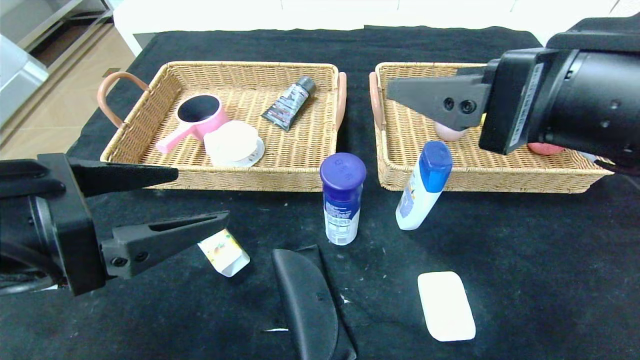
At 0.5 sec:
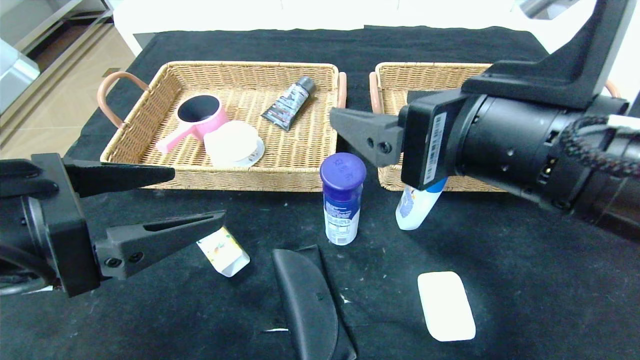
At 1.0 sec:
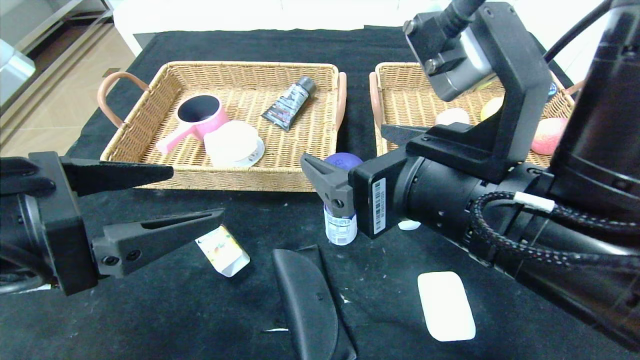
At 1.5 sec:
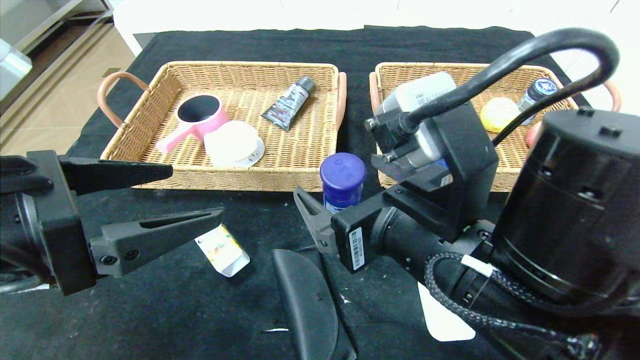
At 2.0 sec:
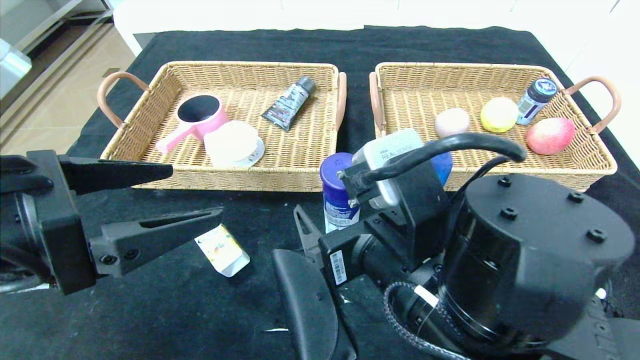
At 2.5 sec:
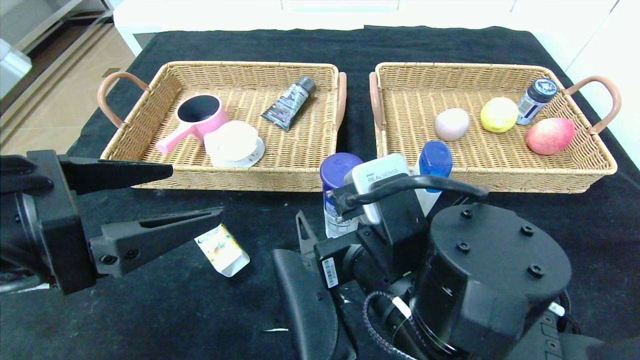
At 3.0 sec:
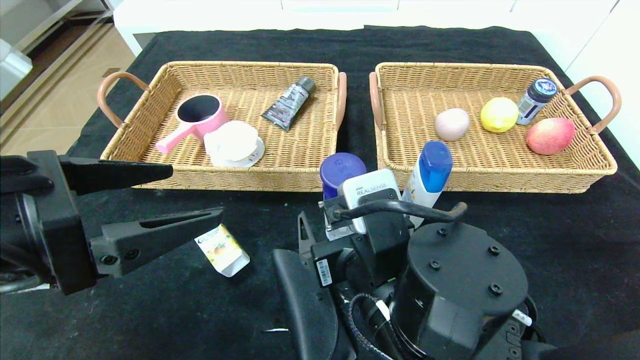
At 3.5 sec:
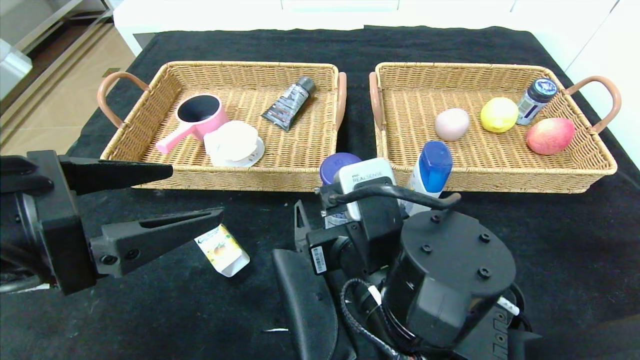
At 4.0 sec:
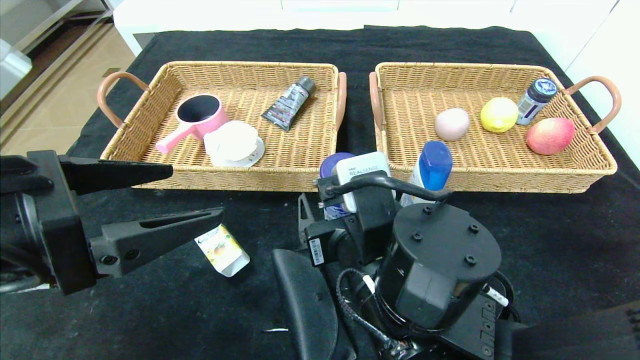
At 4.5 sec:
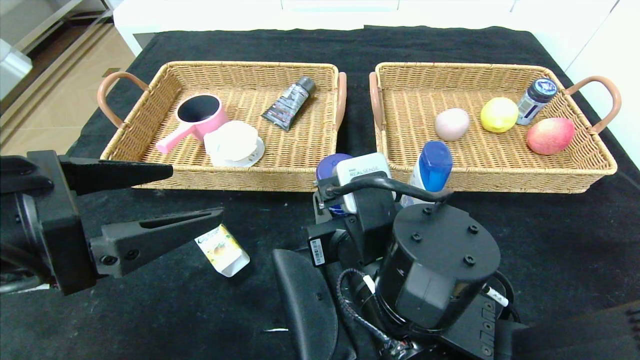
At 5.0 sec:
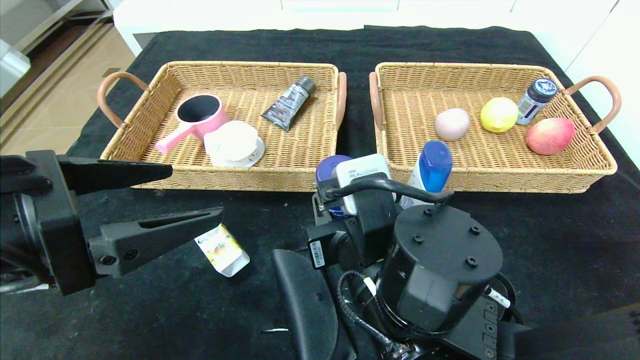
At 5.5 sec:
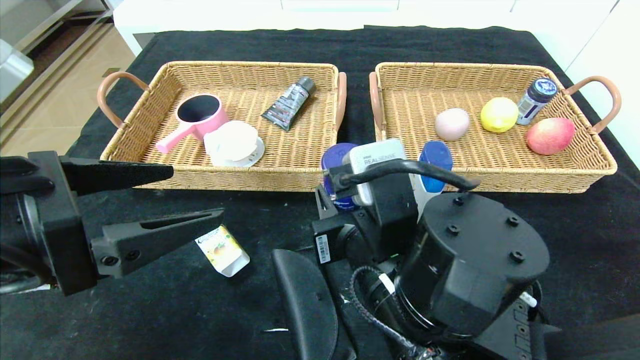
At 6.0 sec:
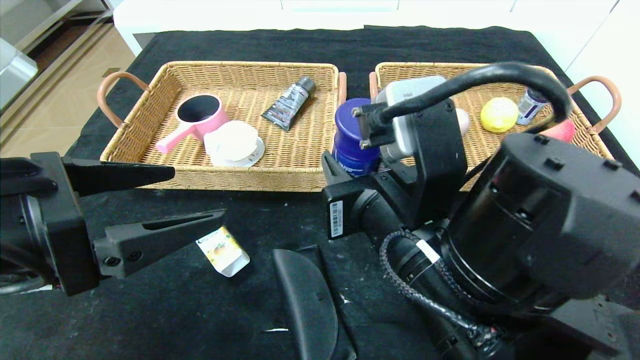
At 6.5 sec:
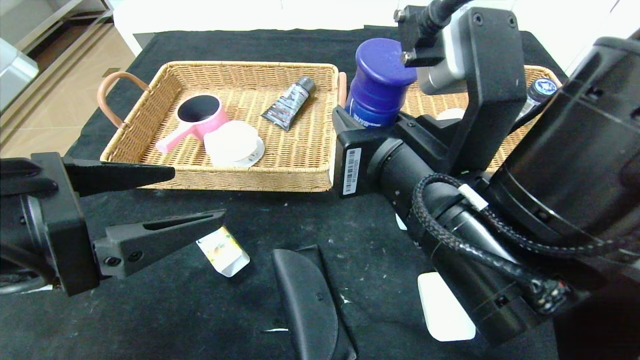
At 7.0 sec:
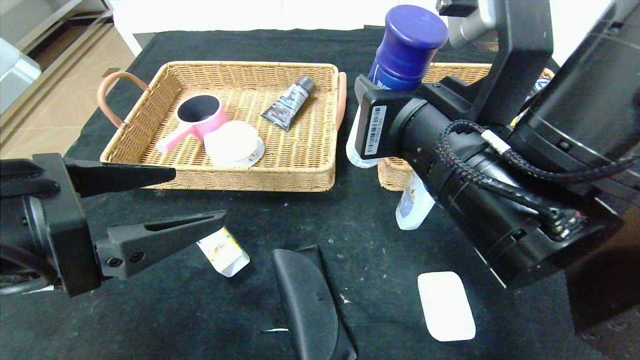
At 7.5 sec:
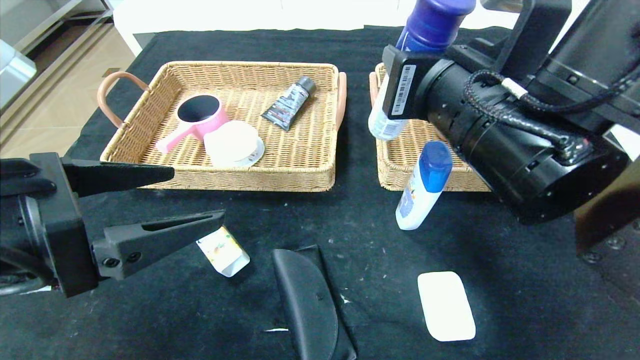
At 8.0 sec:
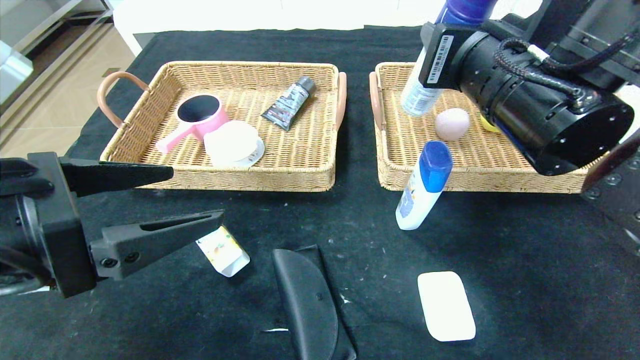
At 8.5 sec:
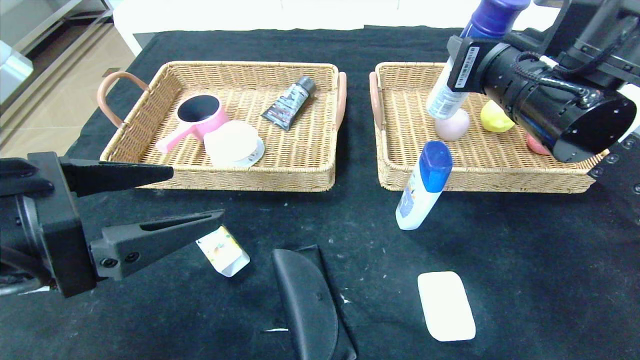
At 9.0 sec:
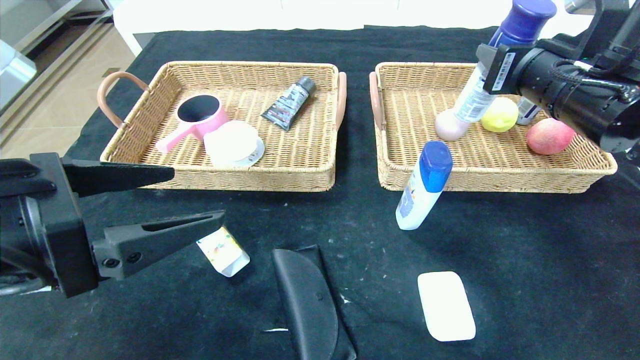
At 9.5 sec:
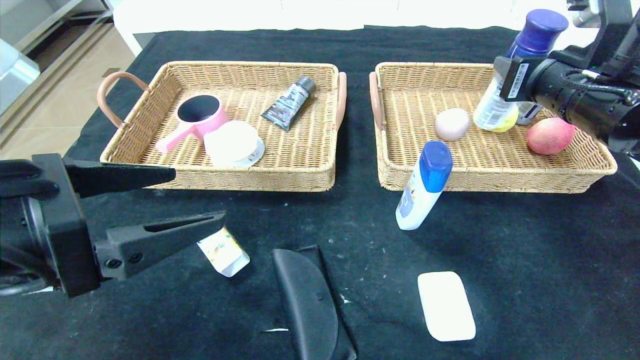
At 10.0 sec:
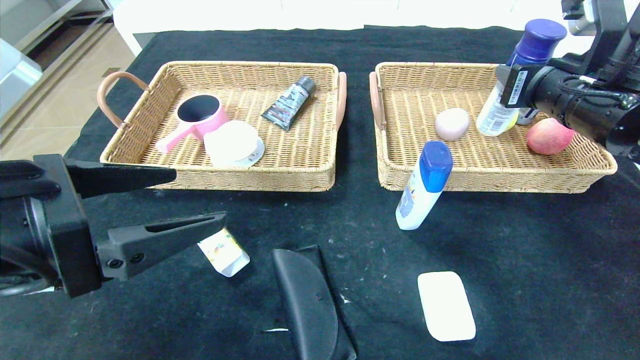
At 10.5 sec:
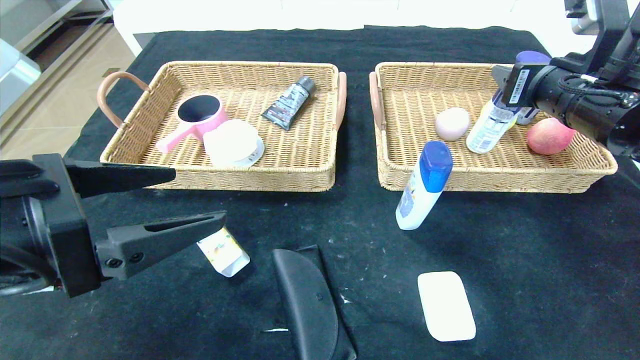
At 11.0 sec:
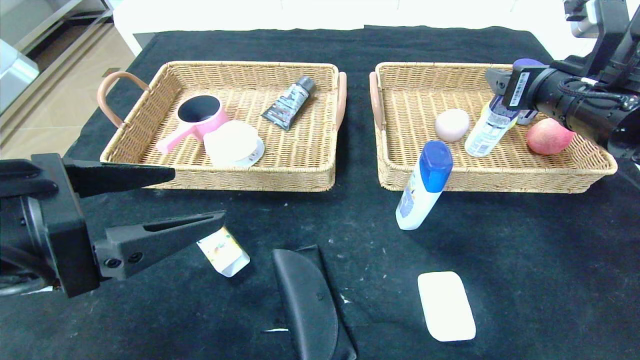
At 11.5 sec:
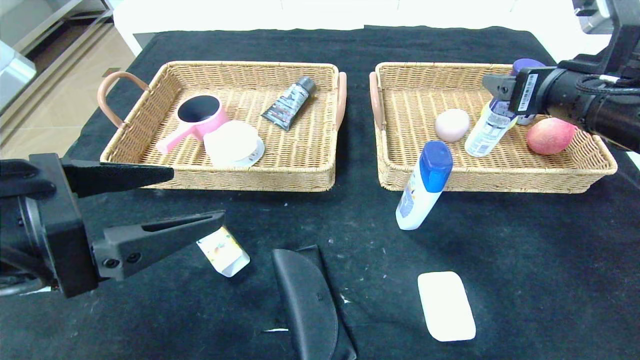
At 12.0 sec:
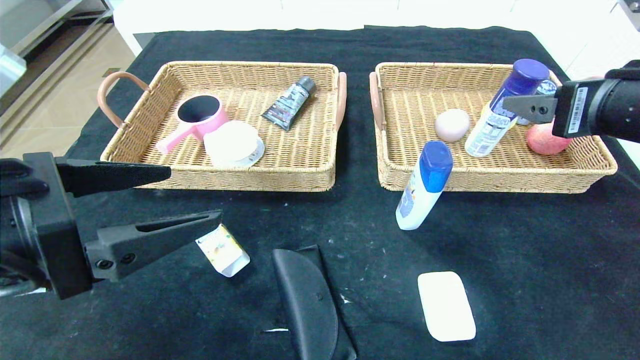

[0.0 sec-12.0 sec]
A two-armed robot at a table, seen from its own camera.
Step, 0.0 sec to 11.0 sec: Grasp the yogurt and put it in the right basket.
0.0 sec to 2.0 sec: The right gripper heads downward and to the left, covering about 15 cm.
2.0 sec to 4.0 sec: The right gripper moves roughly 5 cm.
4.0 sec to 6.0 sec: The right gripper heads upward, covering some 5 cm, and closes up.
6.0 sec to 8.0 sec: The right gripper heads upward, to the right and forward, covering some 15 cm.
8.0 sec to 10.0 sec: The right gripper shifts some 15 cm to the right and forward.
10.0 sec to 12.0 sec: The right gripper heads backward, covering some 10 cm, and opens.

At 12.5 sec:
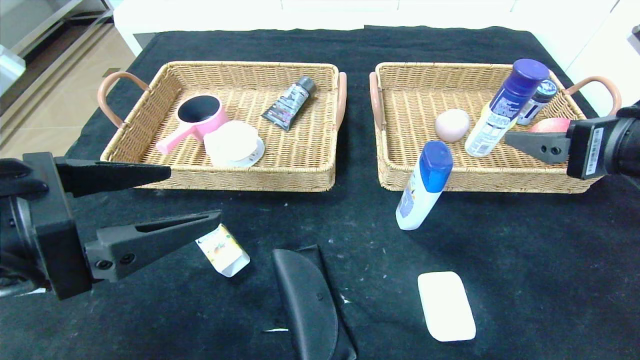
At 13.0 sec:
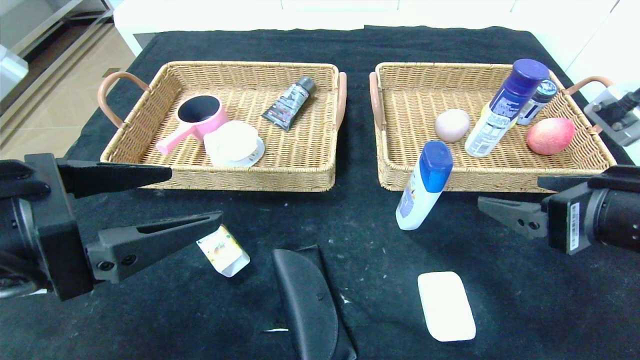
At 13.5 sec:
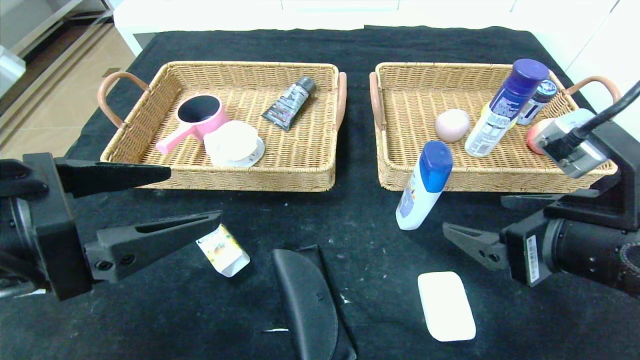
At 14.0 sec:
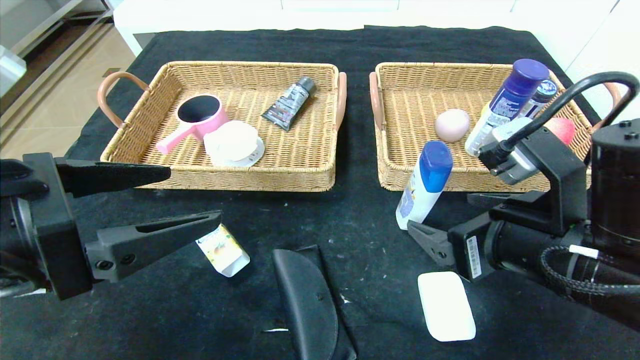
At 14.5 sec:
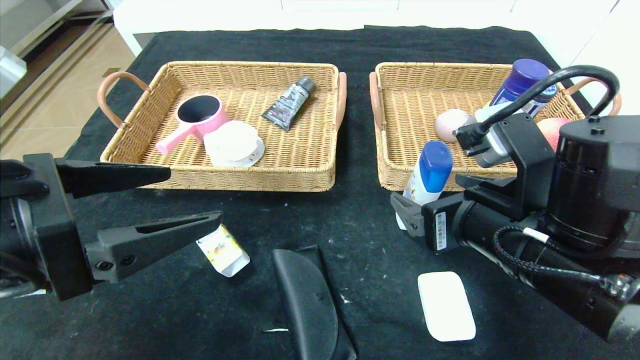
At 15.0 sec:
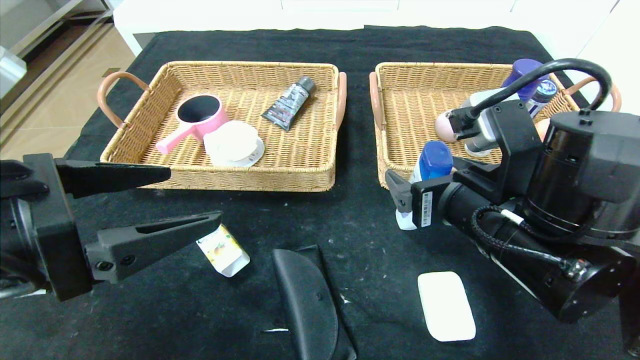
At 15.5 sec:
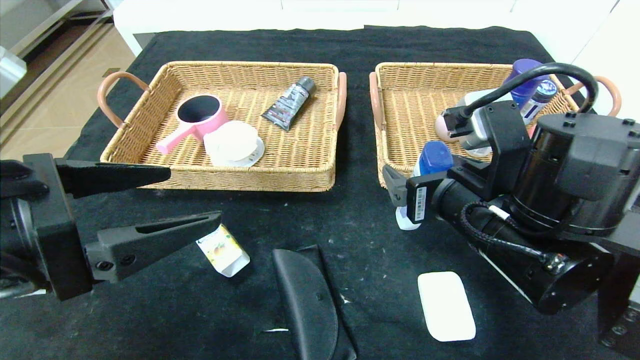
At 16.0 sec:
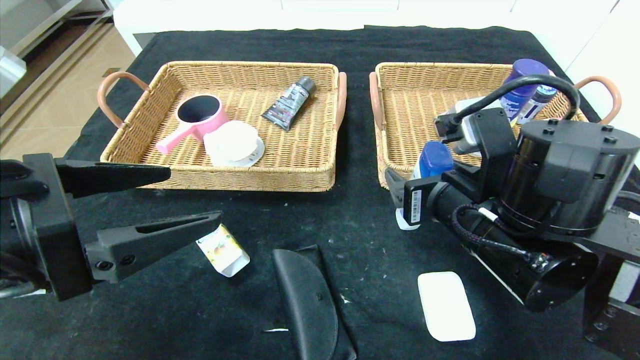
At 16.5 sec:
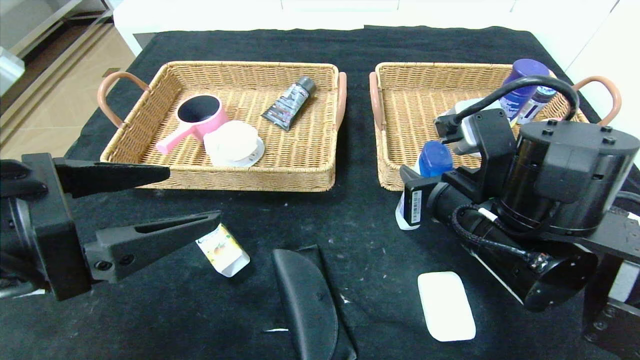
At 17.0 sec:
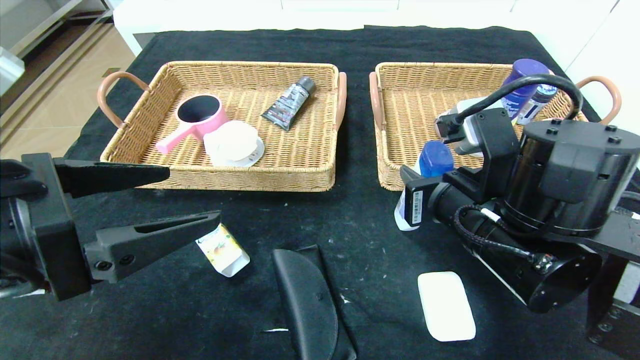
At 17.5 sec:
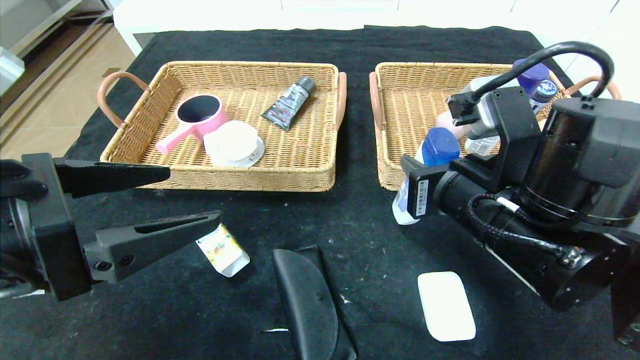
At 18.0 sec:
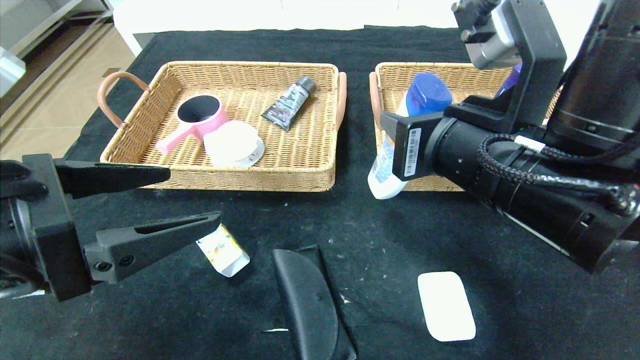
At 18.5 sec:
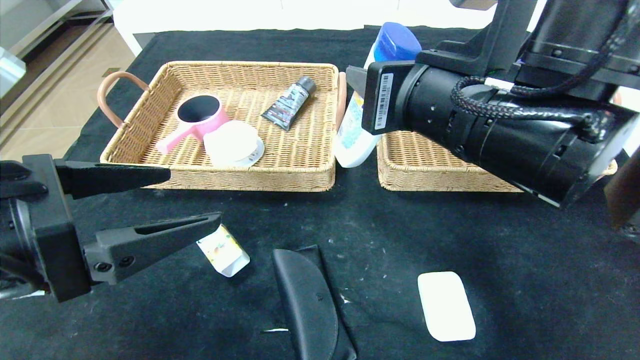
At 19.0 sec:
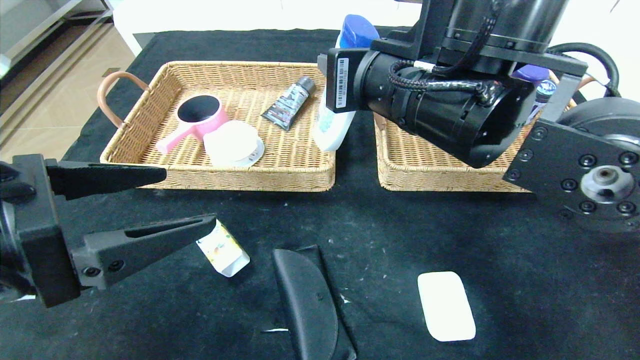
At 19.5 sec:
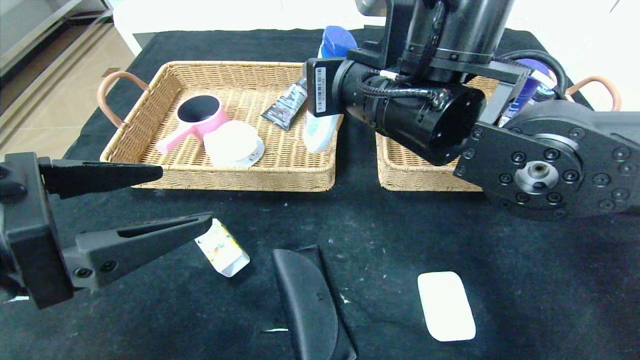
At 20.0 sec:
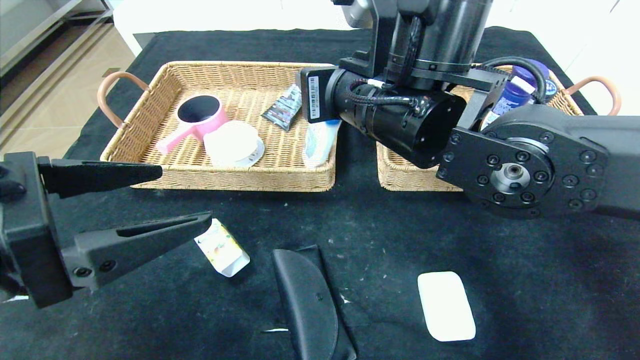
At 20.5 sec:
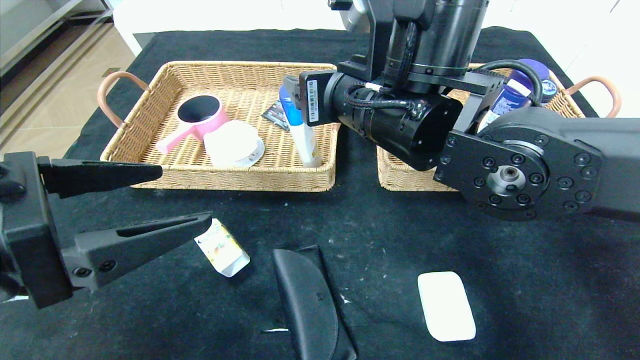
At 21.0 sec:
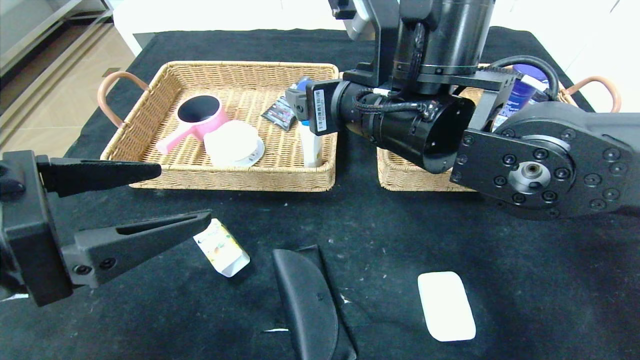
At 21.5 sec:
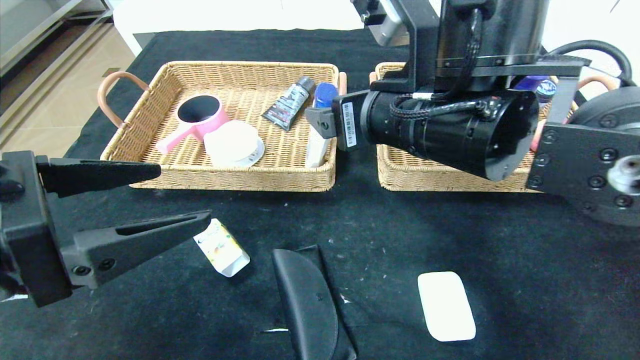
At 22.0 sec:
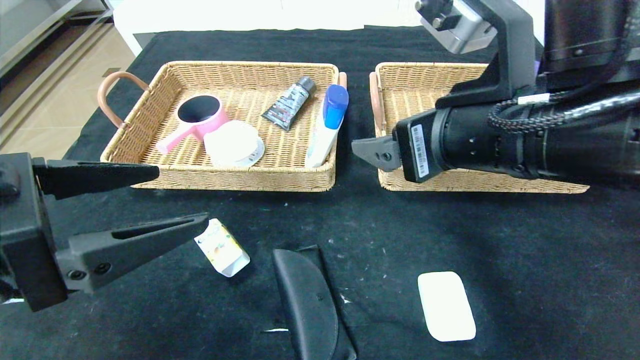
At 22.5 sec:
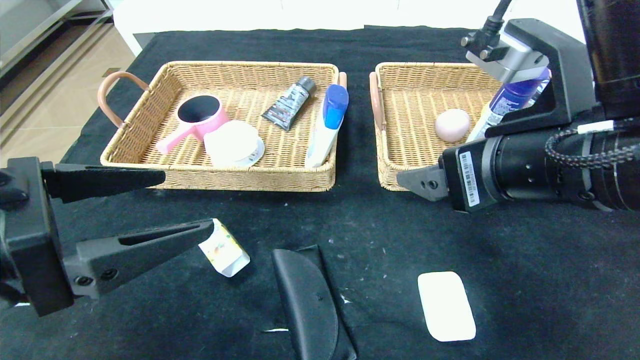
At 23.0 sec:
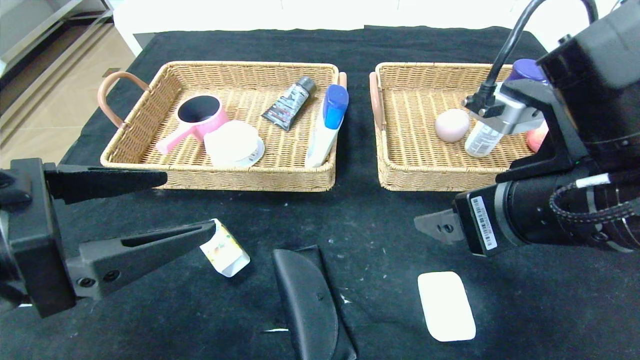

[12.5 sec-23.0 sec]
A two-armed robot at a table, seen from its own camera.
12.5 sec to 14.5 sec: The right gripper moves to the left and downward, some 15 cm.
14.5 sec to 16.5 sec: The right gripper closes.
16.5 sec to 19.0 sec: The right gripper is displaced upward and to the left by about 10 cm.
19.0 sec to 21.0 sec: The right gripper opens.
21.0 sec to 23.0 sec: The right gripper is displaced to the right and backward by roughly 15 cm.
